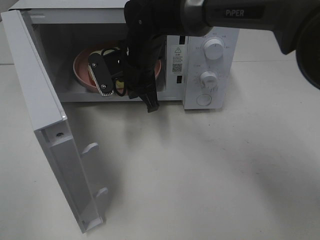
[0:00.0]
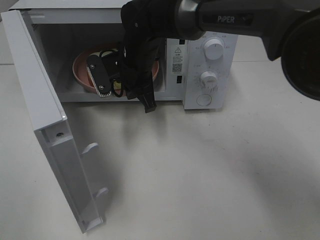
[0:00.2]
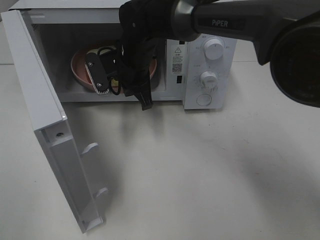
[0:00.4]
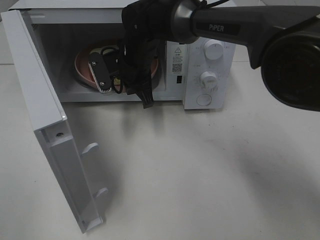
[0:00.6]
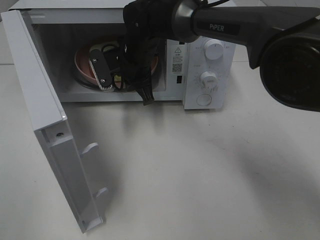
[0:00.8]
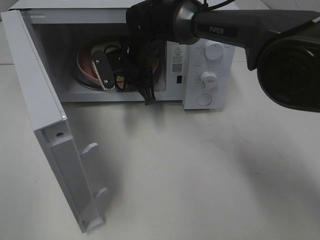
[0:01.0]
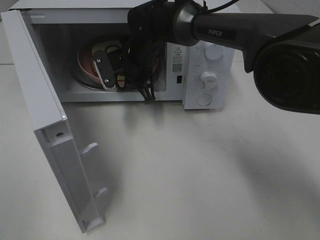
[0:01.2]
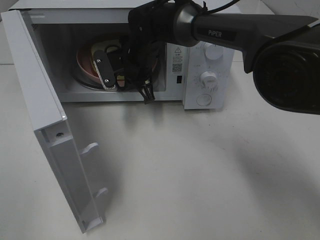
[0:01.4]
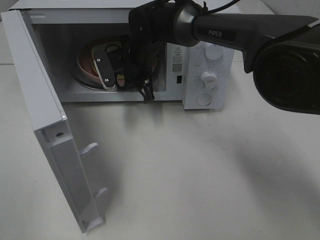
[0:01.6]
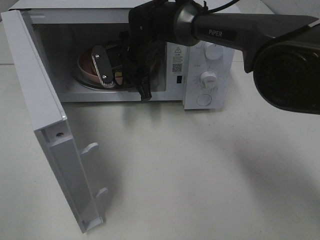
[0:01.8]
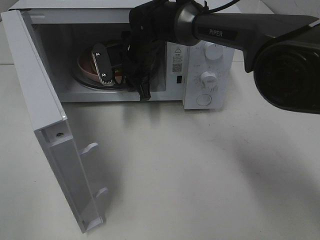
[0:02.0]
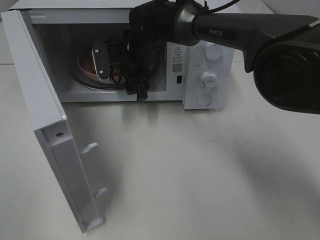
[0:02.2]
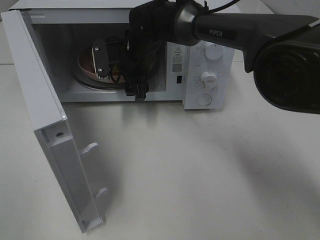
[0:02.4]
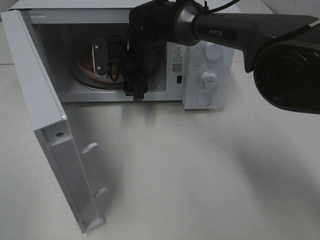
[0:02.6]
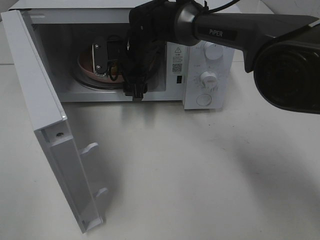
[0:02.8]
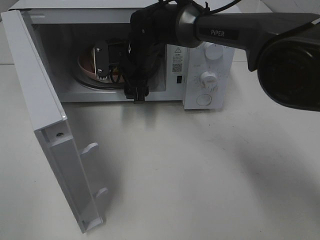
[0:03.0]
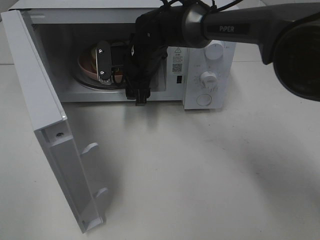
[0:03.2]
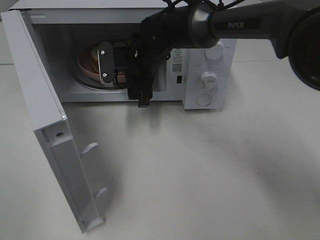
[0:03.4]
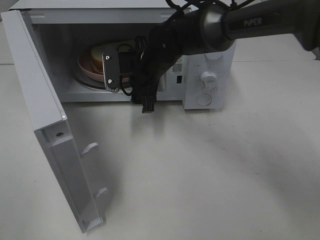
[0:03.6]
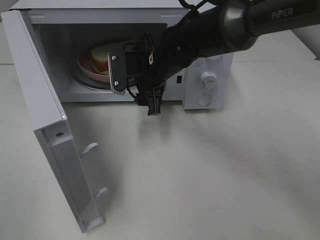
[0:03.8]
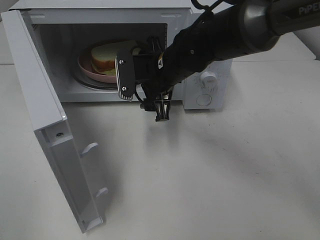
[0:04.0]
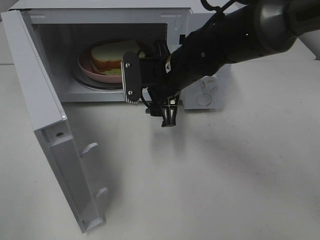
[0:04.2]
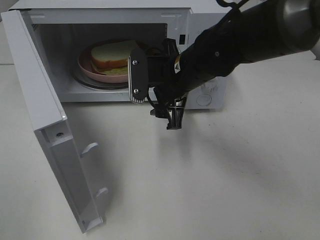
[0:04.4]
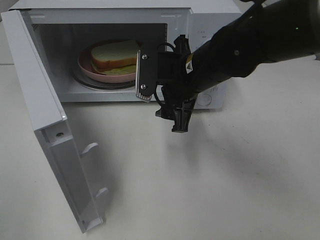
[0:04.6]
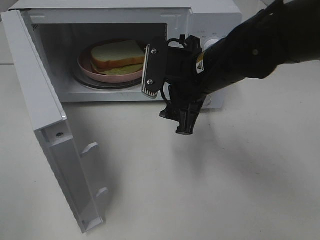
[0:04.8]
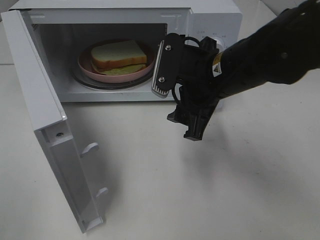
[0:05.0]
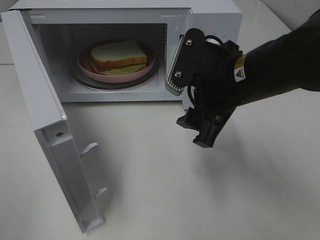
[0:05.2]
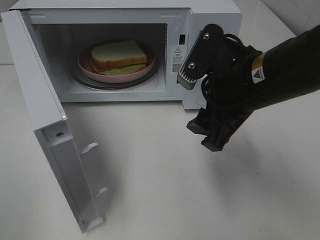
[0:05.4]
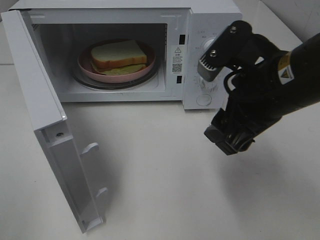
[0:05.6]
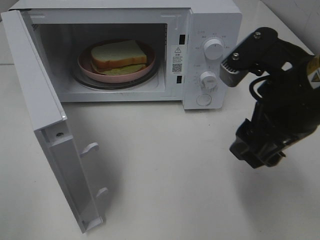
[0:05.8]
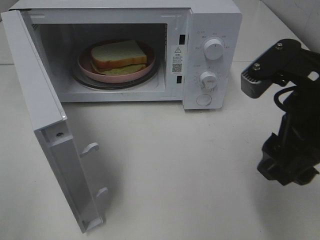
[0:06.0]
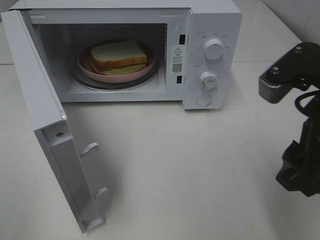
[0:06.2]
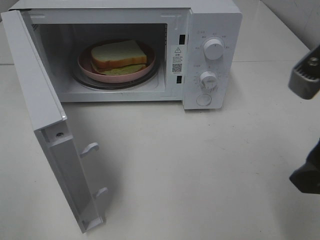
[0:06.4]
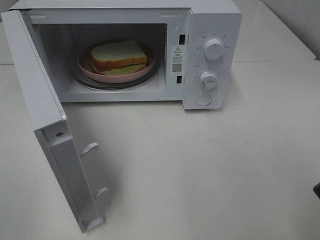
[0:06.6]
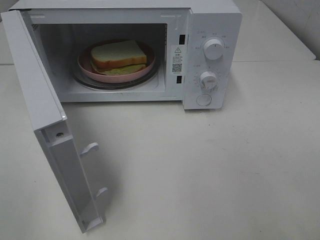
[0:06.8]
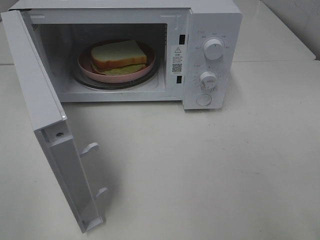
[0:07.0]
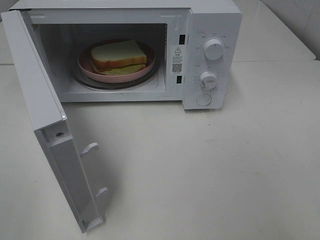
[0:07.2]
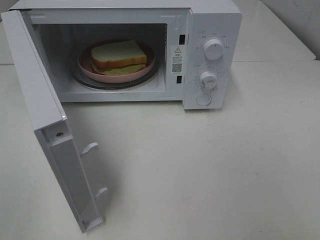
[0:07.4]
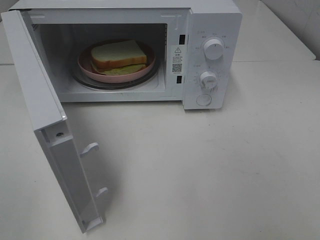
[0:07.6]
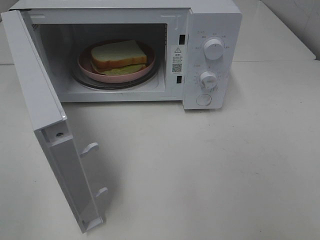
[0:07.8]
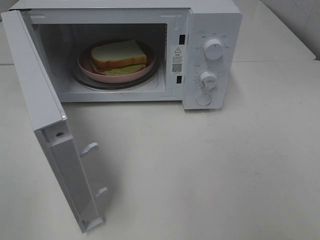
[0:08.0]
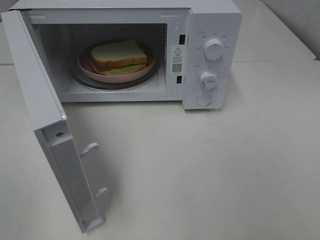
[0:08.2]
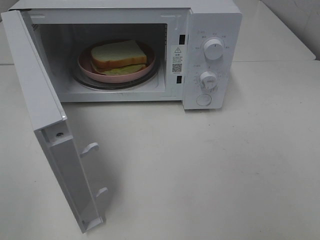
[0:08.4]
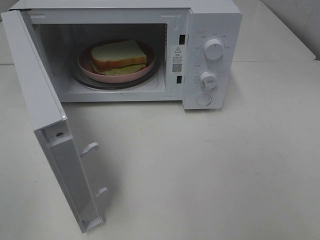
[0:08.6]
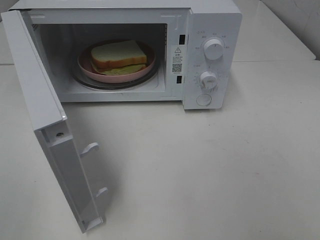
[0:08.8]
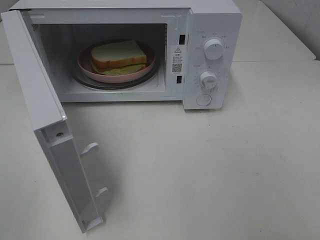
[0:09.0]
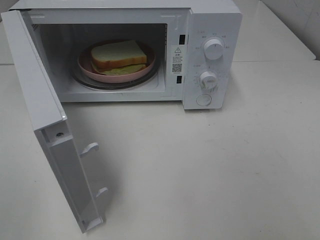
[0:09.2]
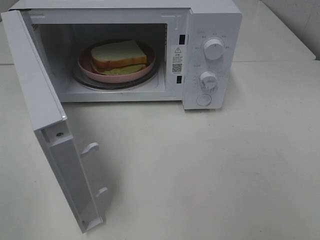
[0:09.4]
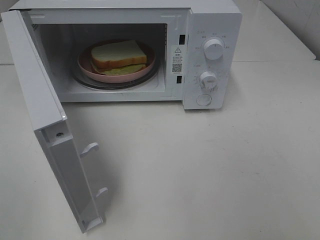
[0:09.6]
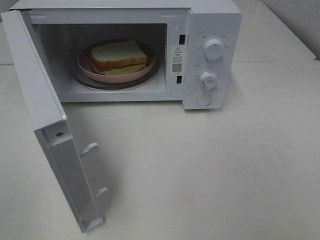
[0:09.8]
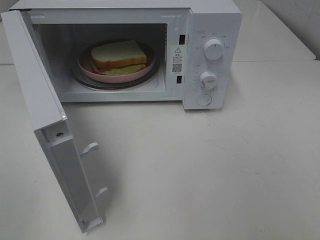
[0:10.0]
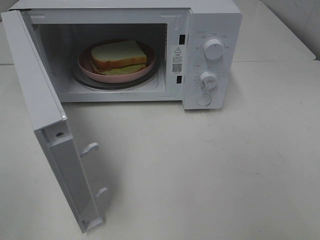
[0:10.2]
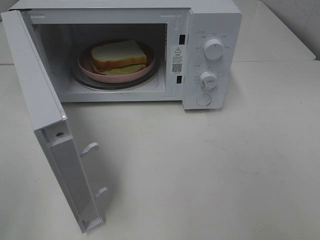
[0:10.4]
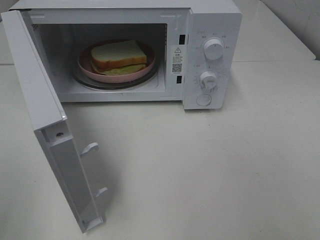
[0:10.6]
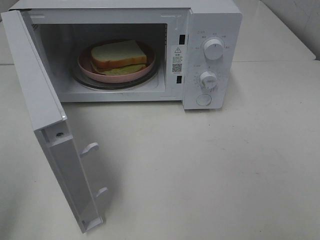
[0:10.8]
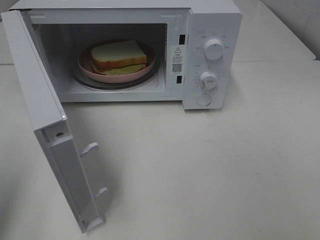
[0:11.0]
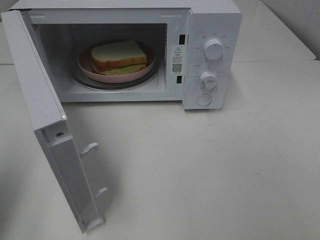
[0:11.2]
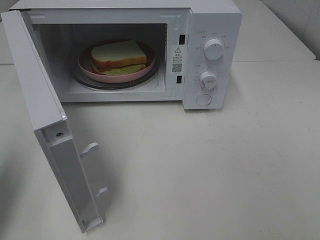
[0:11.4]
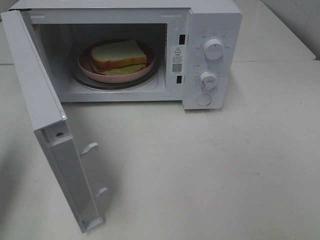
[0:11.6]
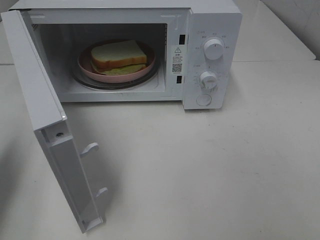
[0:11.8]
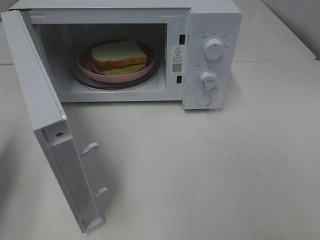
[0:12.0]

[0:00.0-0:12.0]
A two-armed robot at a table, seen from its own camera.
Task of the whole recording: Heat Sandwich.
Step, 0:00.0 to 0:03.4: Right hand: place the plate in the microwave.
0:00.0 to 0:01.6: The right gripper ends up roughly 5 cm from where it was.
0:01.6 to 0:03.0: The right gripper opens.
0:03.0 to 0:04.4: The right gripper is displaced backward and to the right by roughly 15 cm.
0:04.4 to 0:06.0: The right gripper heads backward, to the right and upward, covering about 20 cm.
0:06.0 to 0:07.6: The right gripper heads backward and to the right, covering roughly 20 cm.
0:10.4 to 0:12.0: The left gripper moves forward and downward, about 20 cm, and closes.

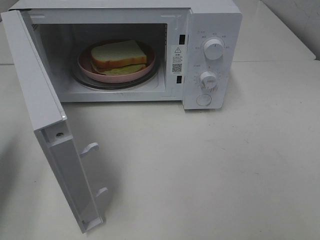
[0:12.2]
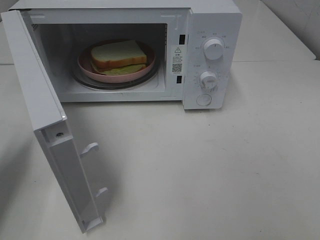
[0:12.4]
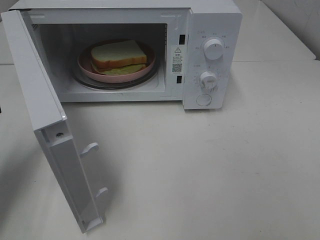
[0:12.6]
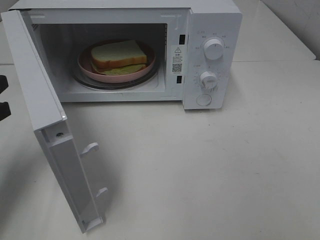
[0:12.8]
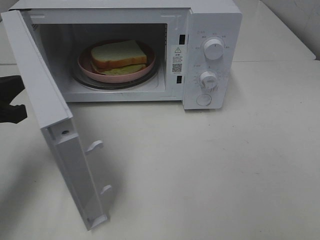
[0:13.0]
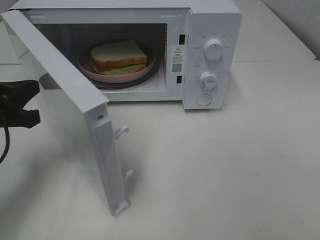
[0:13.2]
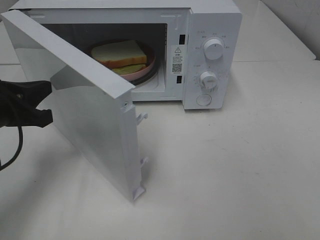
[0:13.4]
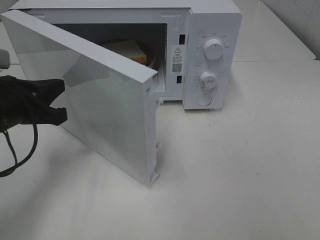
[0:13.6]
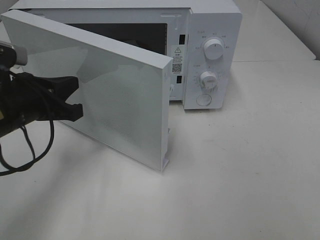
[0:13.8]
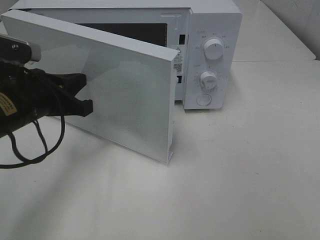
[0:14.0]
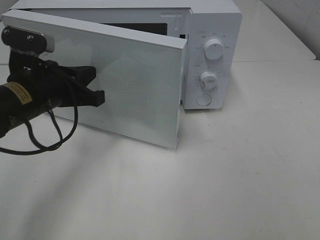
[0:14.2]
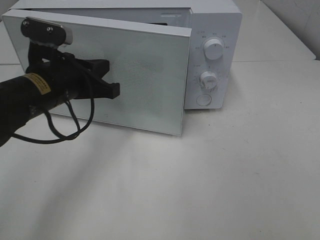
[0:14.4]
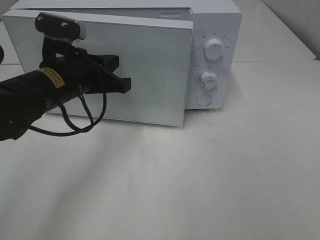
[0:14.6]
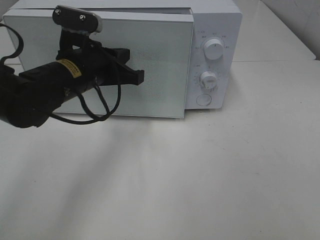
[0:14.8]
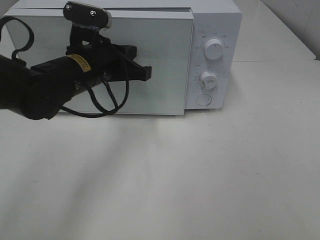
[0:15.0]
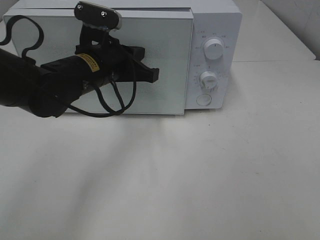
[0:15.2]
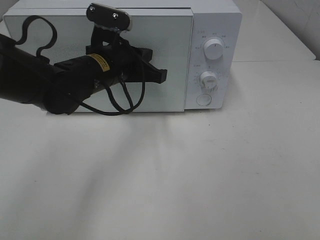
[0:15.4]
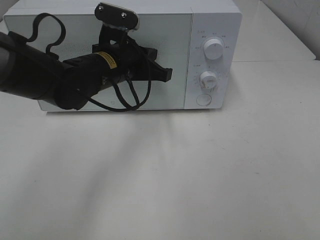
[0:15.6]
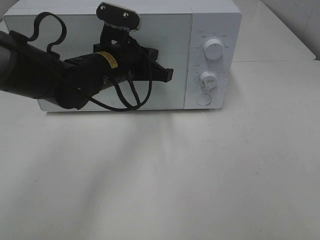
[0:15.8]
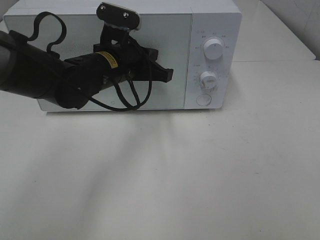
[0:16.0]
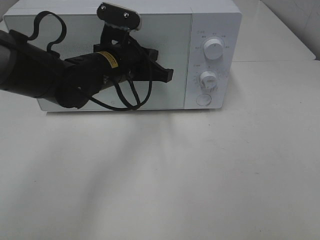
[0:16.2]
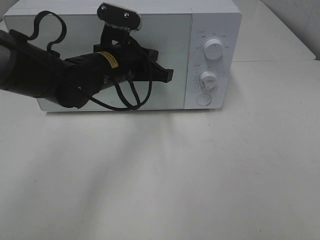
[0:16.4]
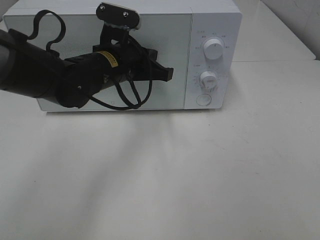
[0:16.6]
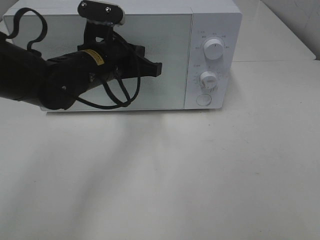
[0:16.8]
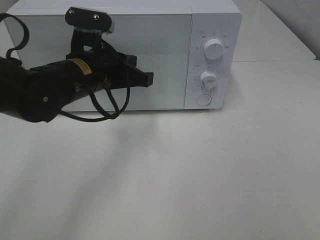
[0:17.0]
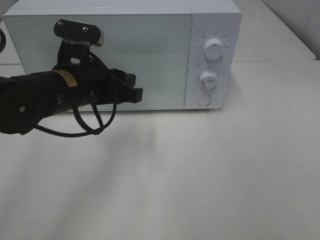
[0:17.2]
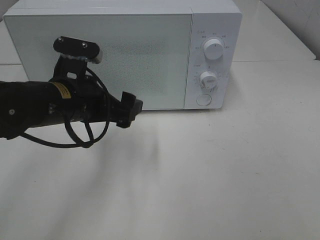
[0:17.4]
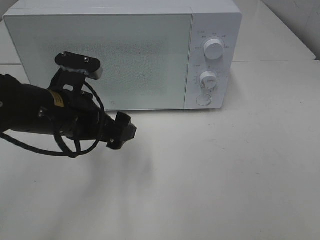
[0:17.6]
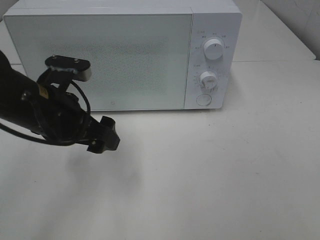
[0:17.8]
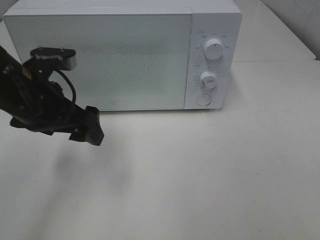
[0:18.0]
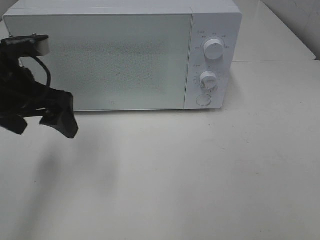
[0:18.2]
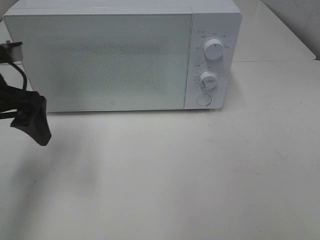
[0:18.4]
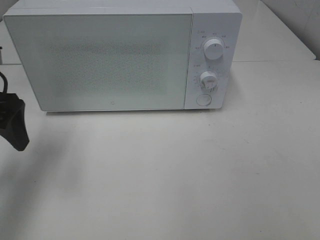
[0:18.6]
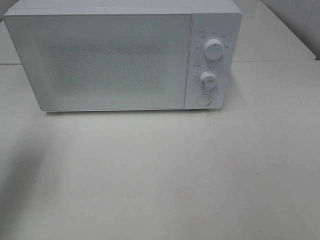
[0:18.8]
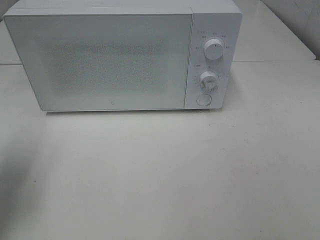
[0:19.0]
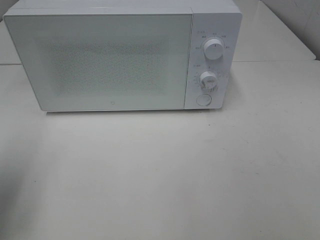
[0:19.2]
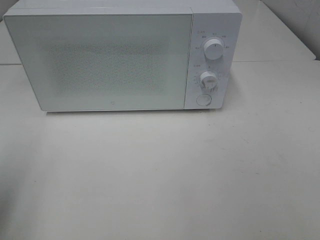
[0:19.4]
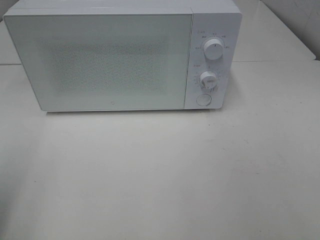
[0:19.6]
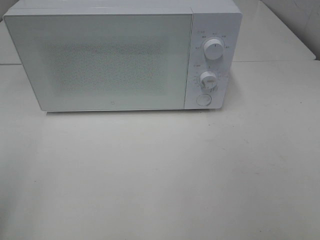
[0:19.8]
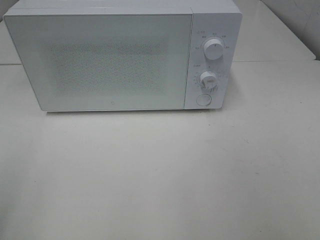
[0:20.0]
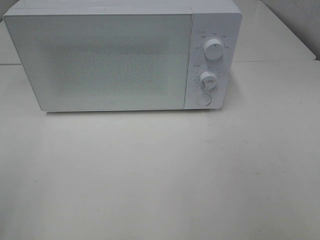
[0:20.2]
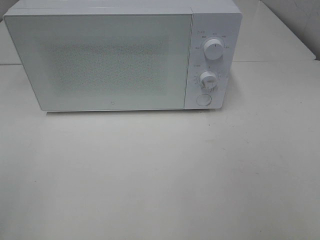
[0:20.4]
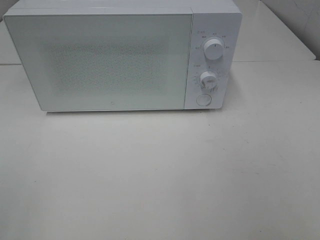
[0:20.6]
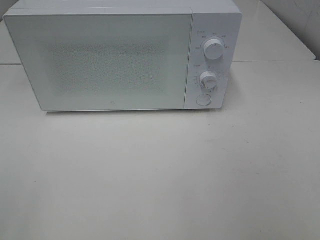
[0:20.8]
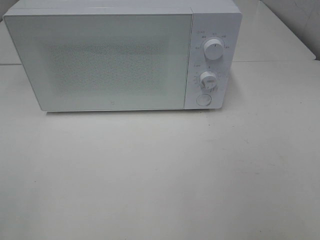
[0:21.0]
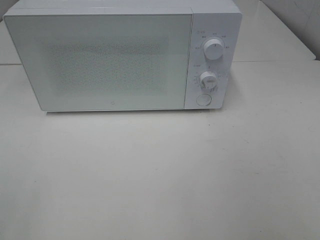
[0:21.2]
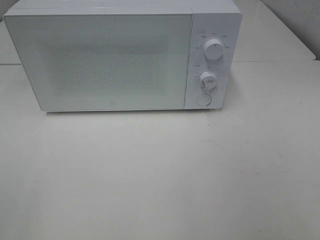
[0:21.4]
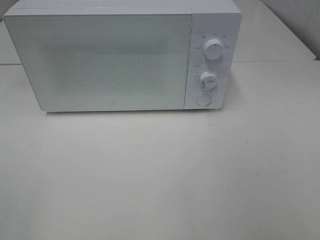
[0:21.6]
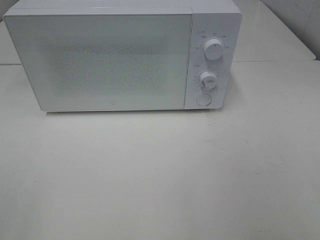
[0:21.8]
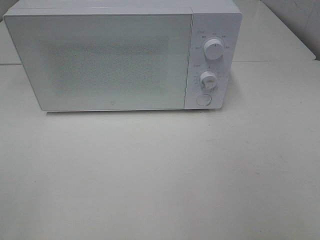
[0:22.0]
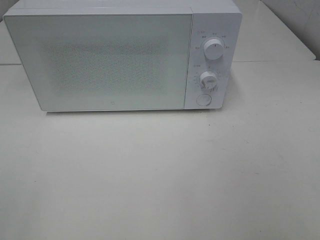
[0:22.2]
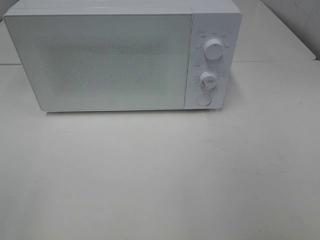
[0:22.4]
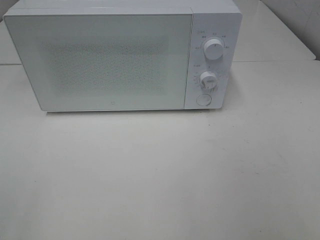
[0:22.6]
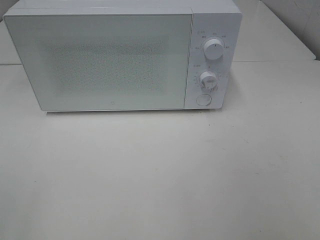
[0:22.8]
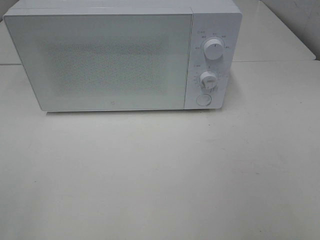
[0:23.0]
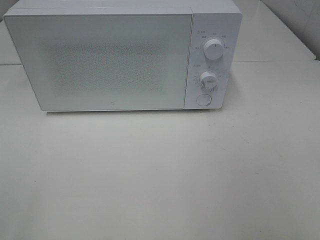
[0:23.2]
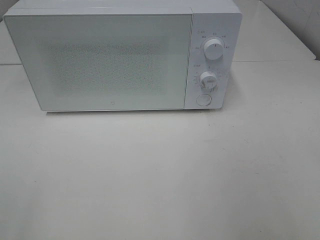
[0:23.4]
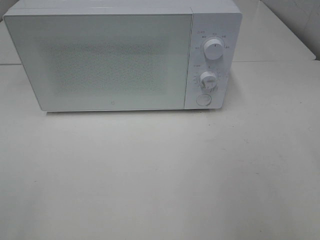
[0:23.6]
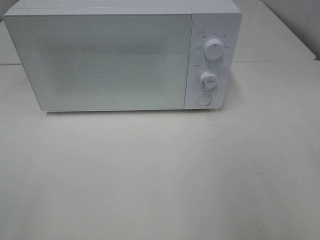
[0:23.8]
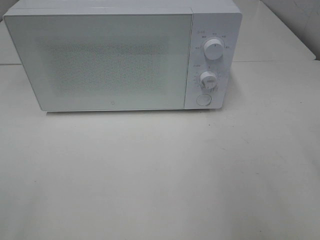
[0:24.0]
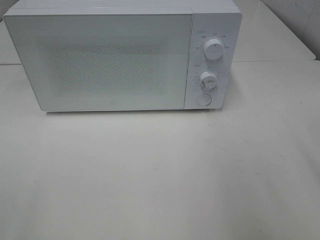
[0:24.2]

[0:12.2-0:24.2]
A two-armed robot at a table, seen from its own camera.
Task of the whole recording: Heat Sandwich.
Step, 0:12.2 to 0:16.4: Left hand: close the microwave door.
0:12.2 to 0:13.8: The left gripper moves to the right, approximately 15 cm.
0:13.8 to 0:15.2: The left gripper moves to the right and forward, approximately 15 cm.
0:15.2 to 0:16.6: The grippers stay close to where they were, moving slightly.
0:16.6 to 0:18.2: The left gripper heads to the left, backward and upward, covering approximately 15 cm, and opens.
0:18.2 to 0:19.8: The left gripper goes some 20 cm backward and to the left.
0:21.2 to 0:22.6: Neither gripper changes place.
